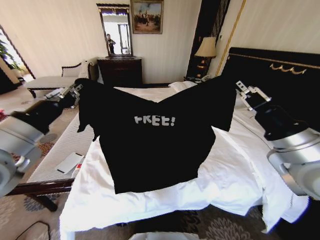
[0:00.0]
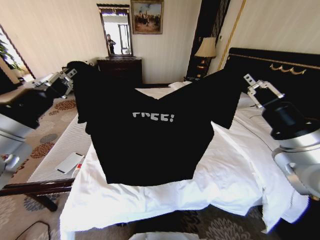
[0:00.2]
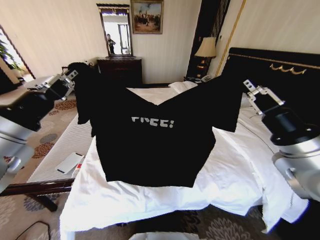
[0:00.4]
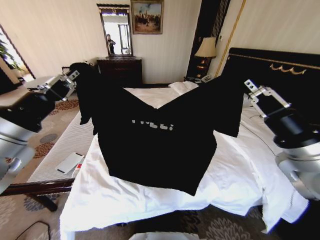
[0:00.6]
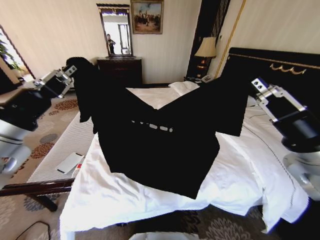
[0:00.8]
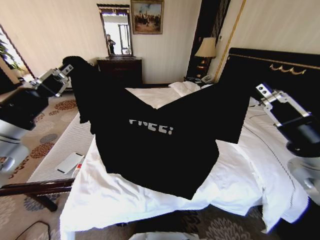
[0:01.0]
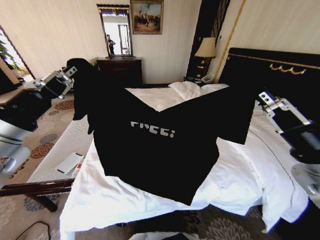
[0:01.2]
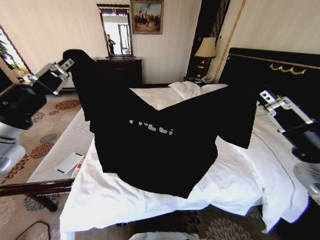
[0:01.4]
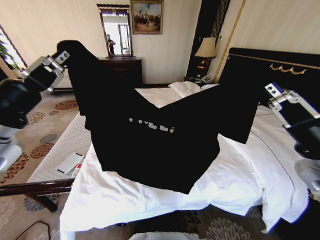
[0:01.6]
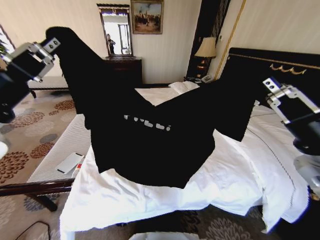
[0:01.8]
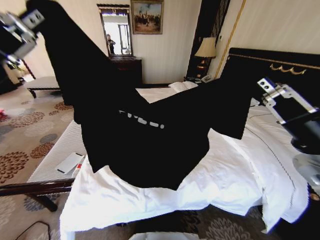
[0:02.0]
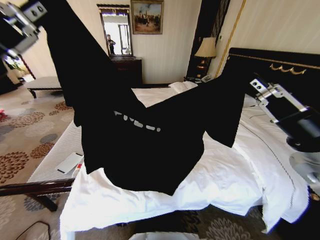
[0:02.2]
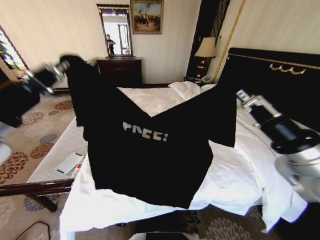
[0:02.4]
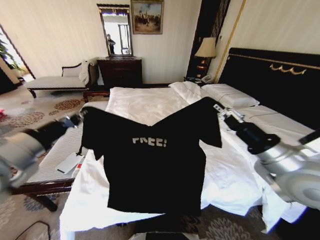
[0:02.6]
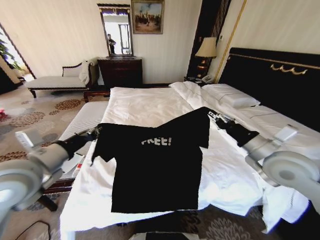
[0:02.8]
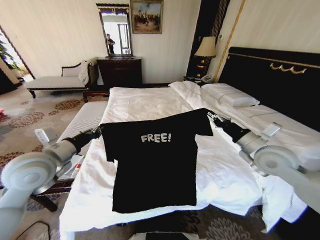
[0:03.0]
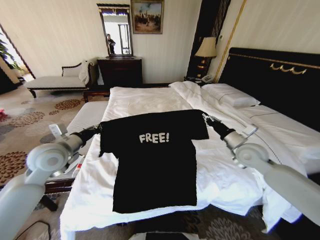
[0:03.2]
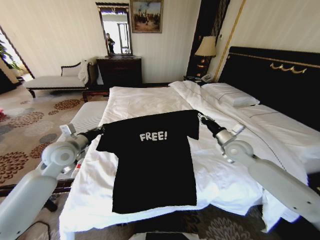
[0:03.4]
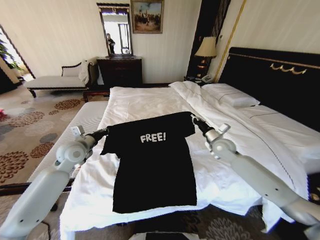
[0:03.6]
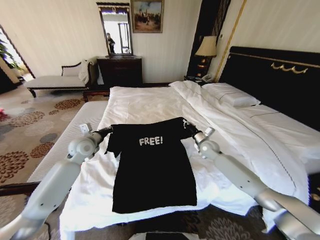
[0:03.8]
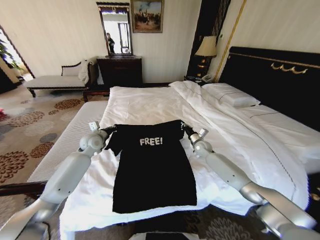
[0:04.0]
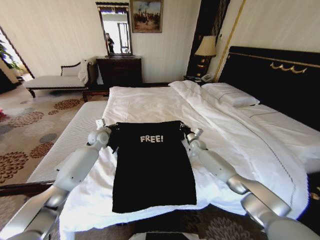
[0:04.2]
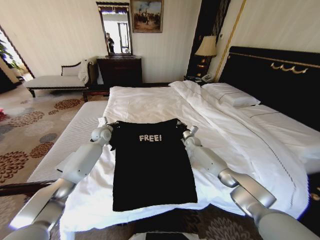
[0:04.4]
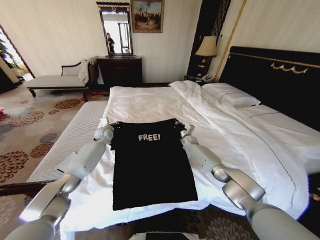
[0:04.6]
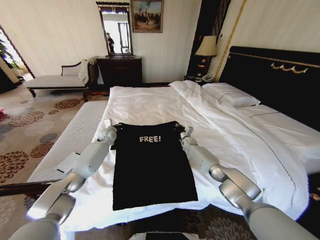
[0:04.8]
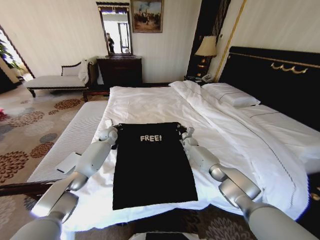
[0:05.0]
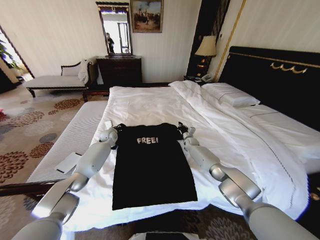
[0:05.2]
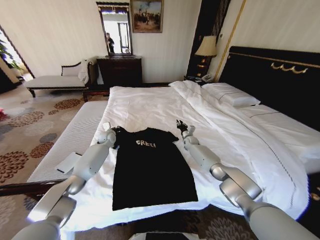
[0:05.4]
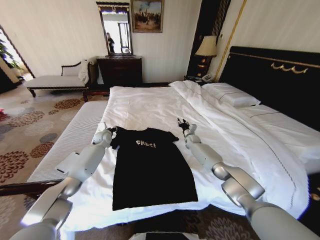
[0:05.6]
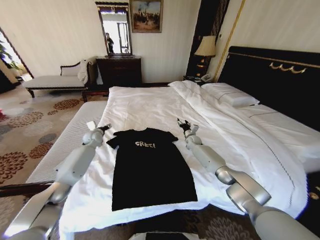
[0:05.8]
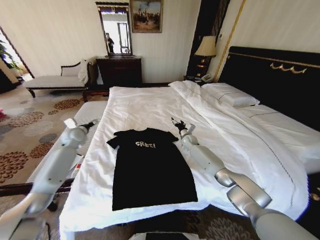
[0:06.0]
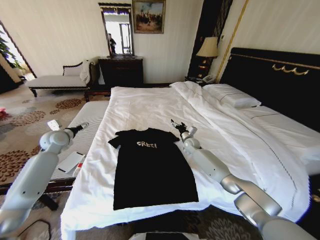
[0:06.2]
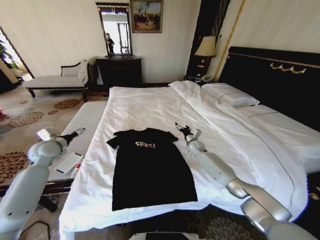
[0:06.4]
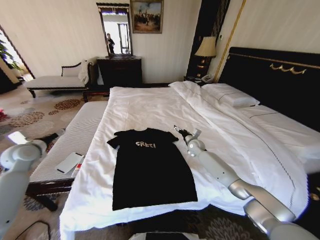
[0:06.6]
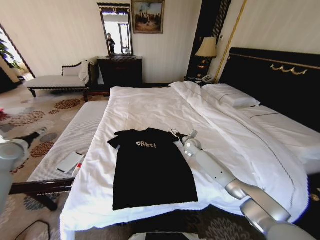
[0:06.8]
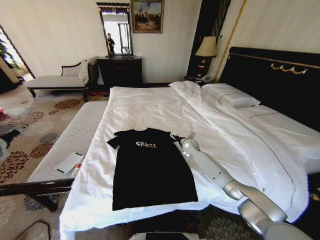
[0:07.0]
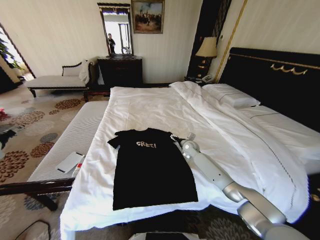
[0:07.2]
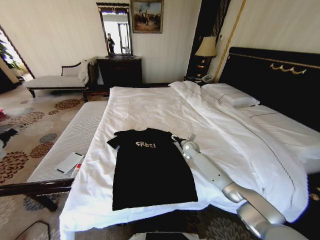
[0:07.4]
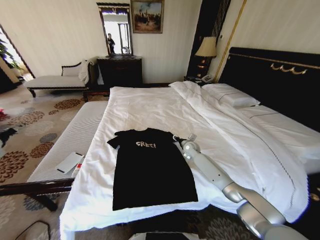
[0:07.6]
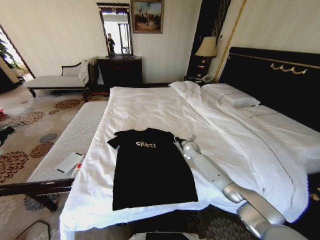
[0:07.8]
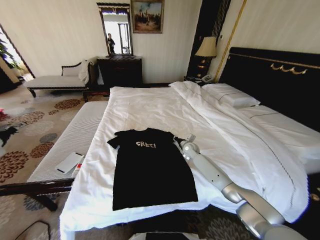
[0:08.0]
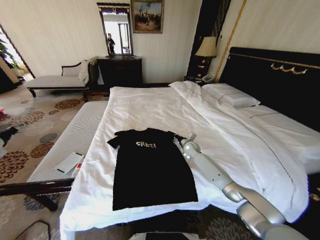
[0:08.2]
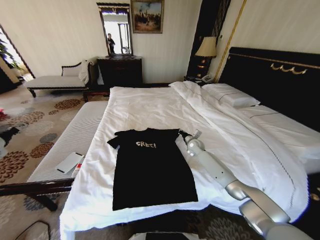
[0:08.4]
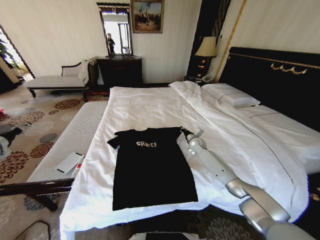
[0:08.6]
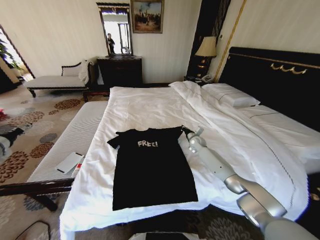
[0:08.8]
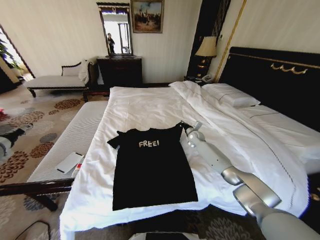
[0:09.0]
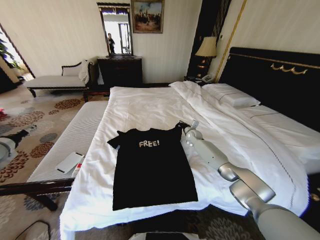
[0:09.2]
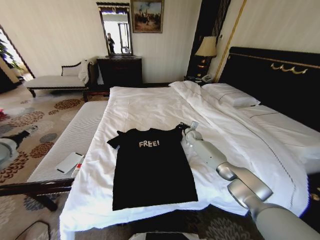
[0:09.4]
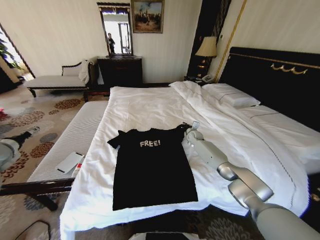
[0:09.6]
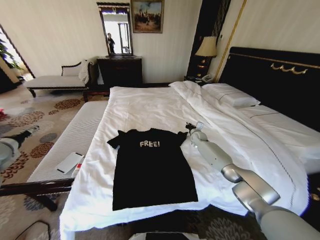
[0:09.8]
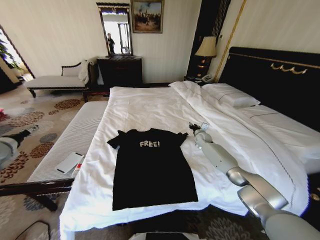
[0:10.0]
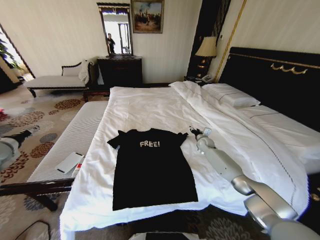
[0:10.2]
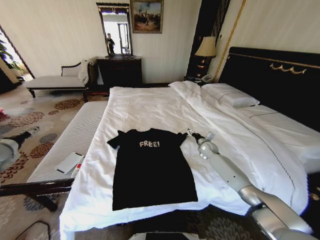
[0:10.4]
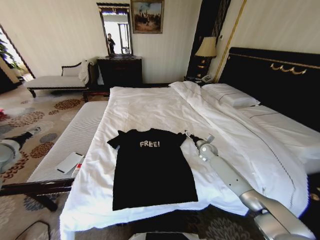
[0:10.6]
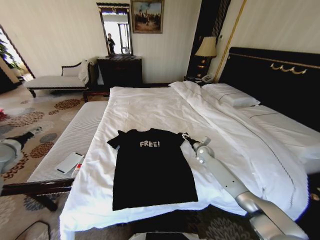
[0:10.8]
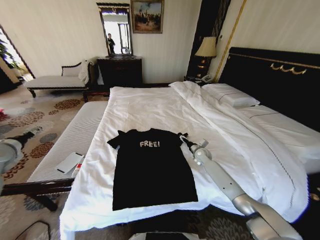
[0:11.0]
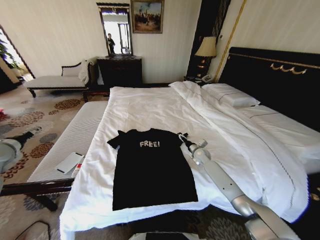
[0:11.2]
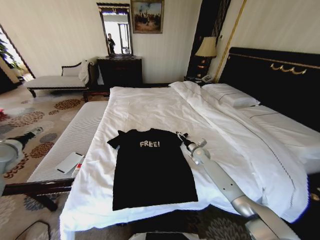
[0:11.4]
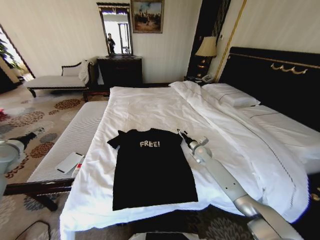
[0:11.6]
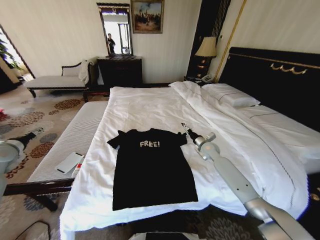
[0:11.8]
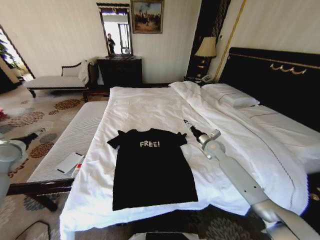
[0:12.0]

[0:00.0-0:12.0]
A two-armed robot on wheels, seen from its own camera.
Task of the whole recording: Fold the clothes on the bed.
0.0 to 1.6 s: The grippers move only a little.
1.6 to 3.0 s: The left gripper goes roughly 15 cm downward and forward. The right gripper travels forward and downward by roughly 15 cm.
3.0 to 4.4 s: The right gripper shifts approximately 35 cm forward, downward and to the left. Meanwhile the left gripper travels forward and downward by roughly 30 cm.
4.4 to 6.0 s: The left gripper heads to the left, covering some 15 cm, and opens up, while the right gripper opens.
6.0 to 7.6 s: The right gripper is displaced backward by about 5 cm. The left gripper is displaced to the left, backward and upward by approximately 25 cm.
7.6 to 9.0 s: The right gripper travels forward by some 5 cm, and closes.
9.0 to 10.4 s: The right gripper travels to the right and backward by approximately 10 cm, and opens up.
10.4 to 12.0 s: The right gripper is displaced upward and backward by approximately 10 cm.

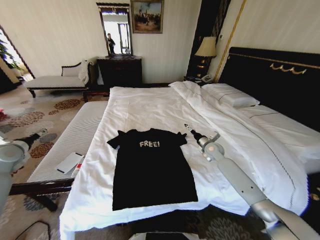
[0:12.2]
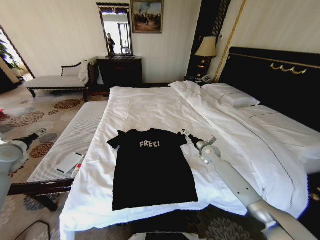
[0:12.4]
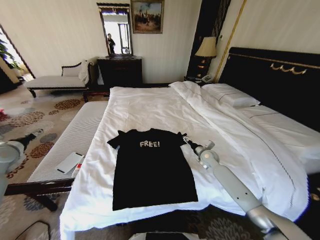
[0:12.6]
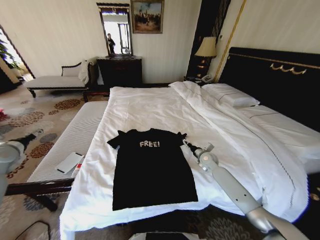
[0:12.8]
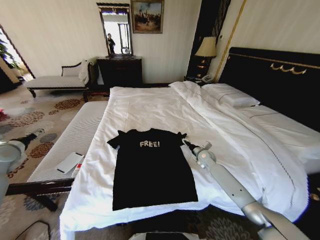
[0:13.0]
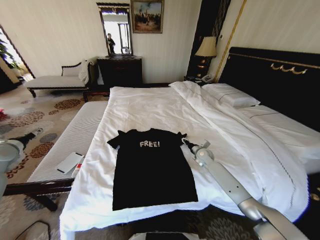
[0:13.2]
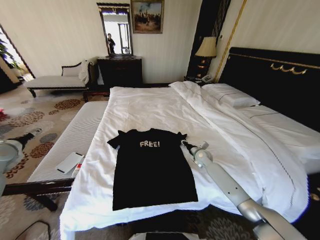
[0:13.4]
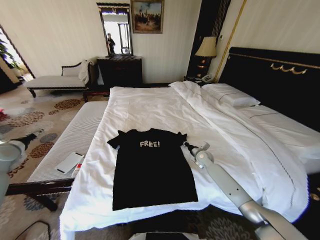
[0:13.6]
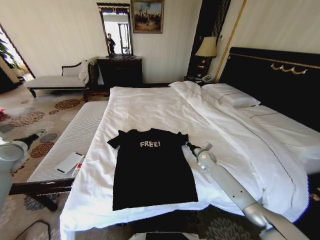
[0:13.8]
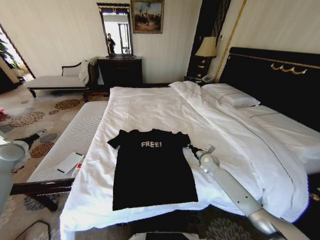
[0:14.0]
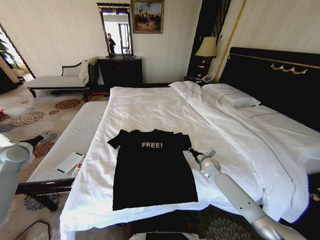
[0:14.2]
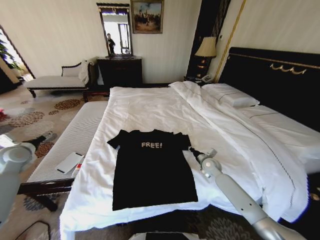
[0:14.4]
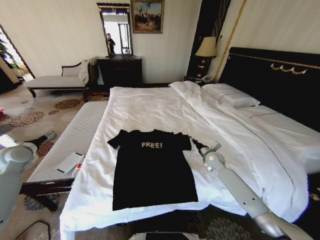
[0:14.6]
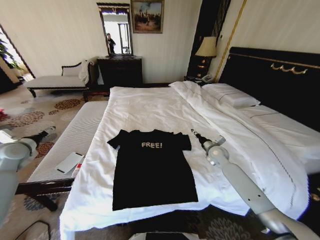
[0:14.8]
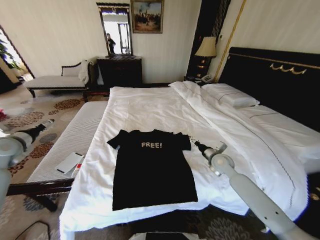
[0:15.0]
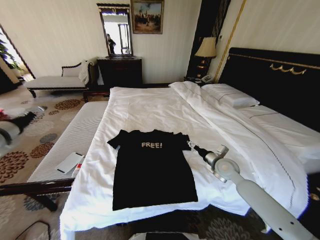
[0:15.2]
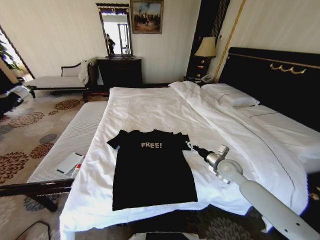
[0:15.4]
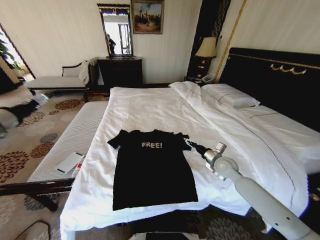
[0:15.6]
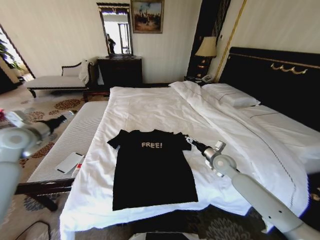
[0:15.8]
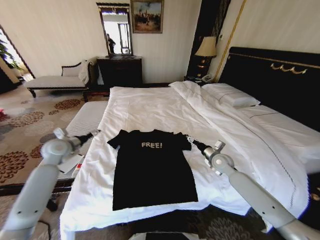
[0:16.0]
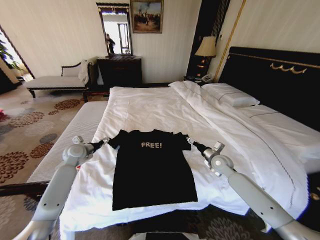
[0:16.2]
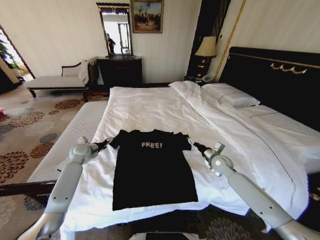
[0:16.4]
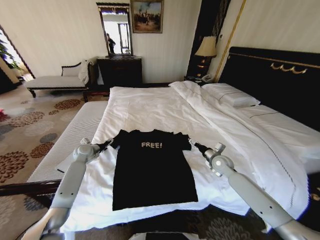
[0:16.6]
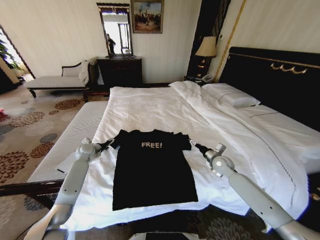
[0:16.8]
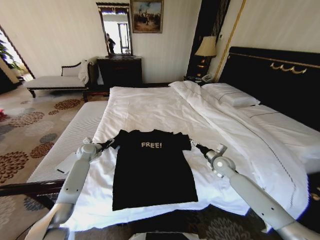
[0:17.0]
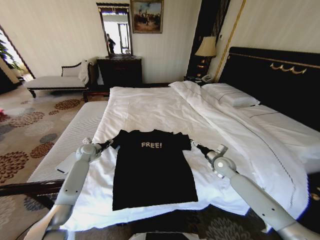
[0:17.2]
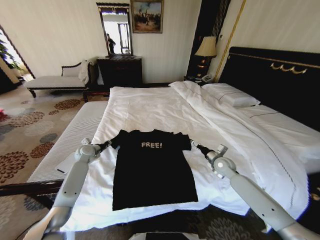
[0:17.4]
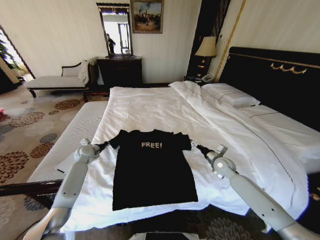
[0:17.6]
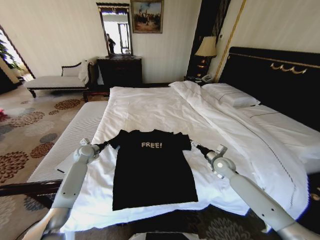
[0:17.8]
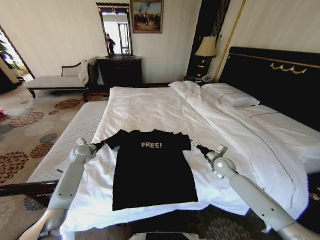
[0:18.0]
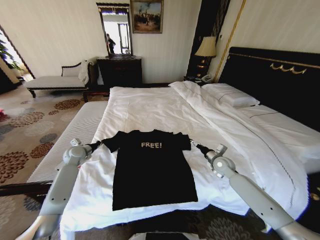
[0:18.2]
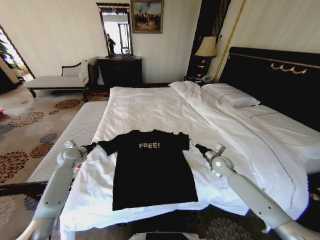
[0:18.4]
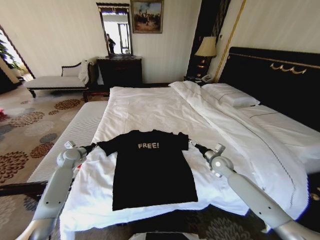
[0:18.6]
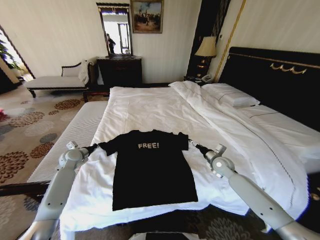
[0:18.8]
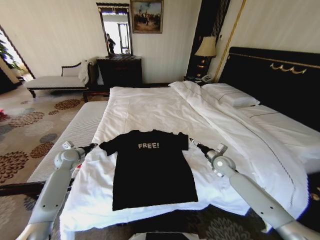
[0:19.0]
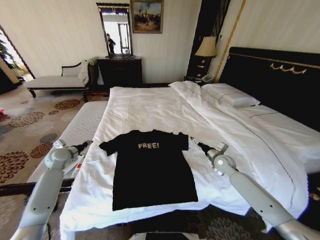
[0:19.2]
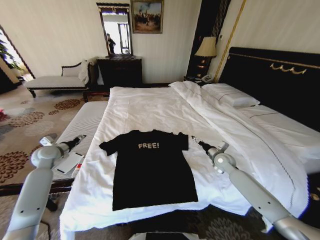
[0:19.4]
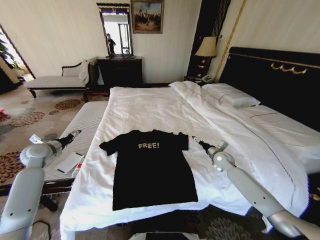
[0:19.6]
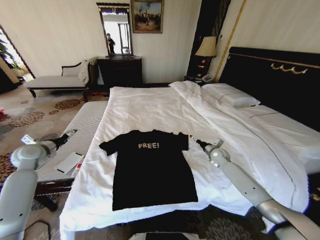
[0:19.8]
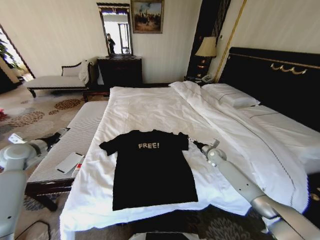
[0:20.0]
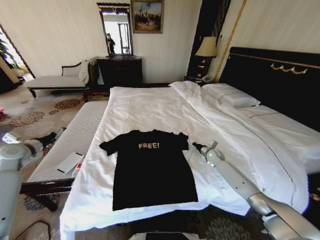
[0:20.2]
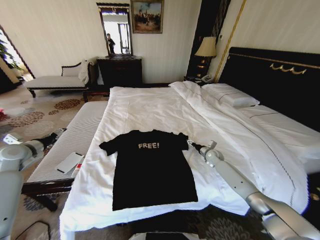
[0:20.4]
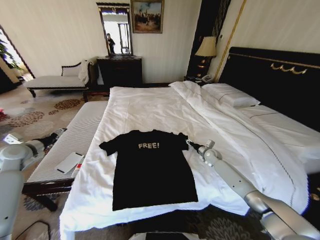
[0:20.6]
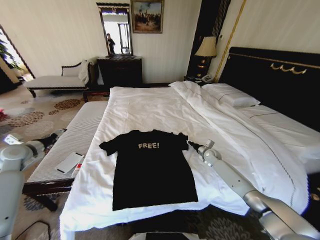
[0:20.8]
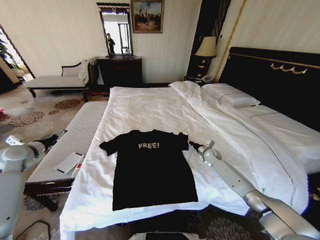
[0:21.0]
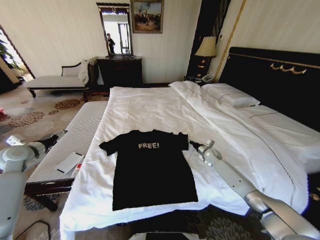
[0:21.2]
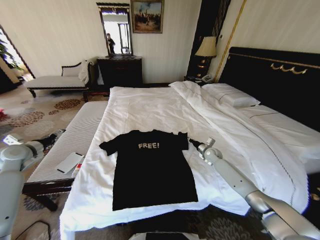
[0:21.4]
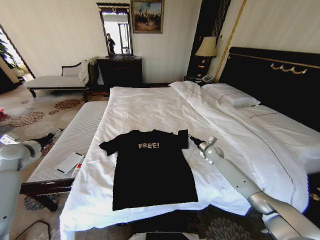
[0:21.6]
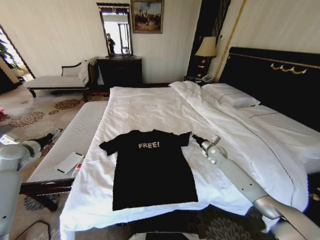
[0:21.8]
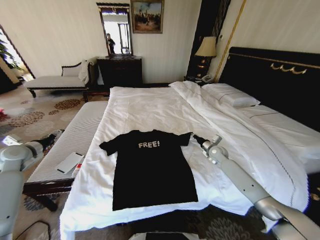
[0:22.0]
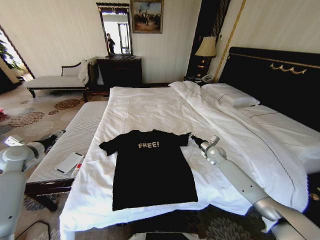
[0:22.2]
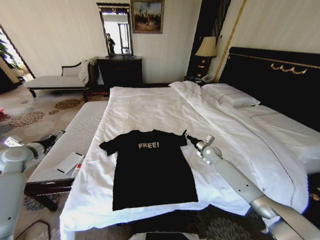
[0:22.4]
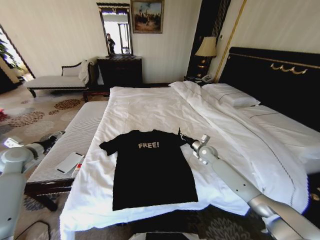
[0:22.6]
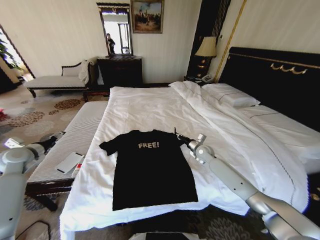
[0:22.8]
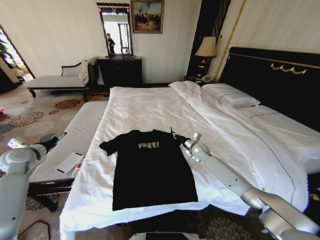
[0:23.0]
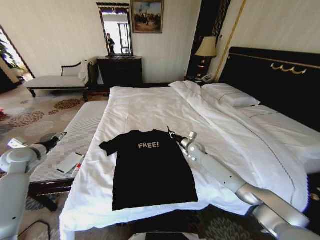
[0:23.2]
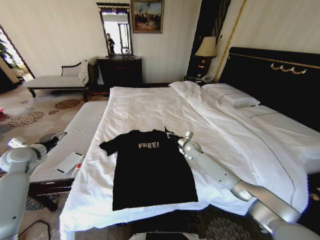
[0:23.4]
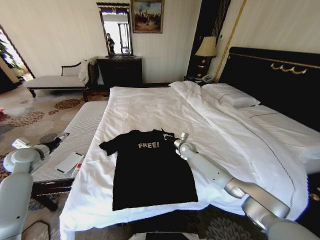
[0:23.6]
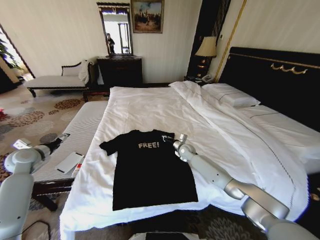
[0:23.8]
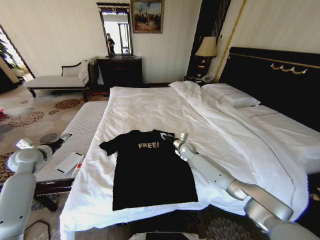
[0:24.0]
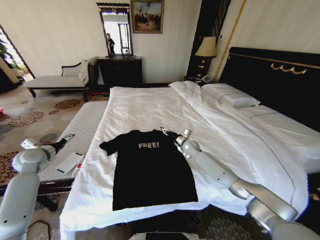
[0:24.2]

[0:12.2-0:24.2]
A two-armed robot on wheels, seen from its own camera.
Task of the whole recording: Fold the clothes on the bed.
12.2 to 13.8 s: The right gripper travels downward by roughly 5 cm, and closes up.
13.8 to 15.2 s: The left gripper travels upward by approximately 10 cm. The right gripper shifts some 15 cm backward and upward, and opens its fingers.
15.2 to 16.6 s: The right gripper moves roughly 5 cm; the left gripper shifts approximately 30 cm downward, forward and to the right.
16.6 to 18.2 s: The left gripper closes up.
18.2 to 19.8 s: The left gripper is displaced upward, to the left and backward by approximately 15 cm, and opens up. The right gripper moves forward, approximately 5 cm.
19.8 to 21.2 s: The right gripper moves roughly 5 cm, and closes up.
21.2 to 22.6 s: The right gripper is displaced to the left and upward by some 10 cm.
22.6 to 24.2 s: The right gripper travels to the left by roughly 10 cm, and opens up.
